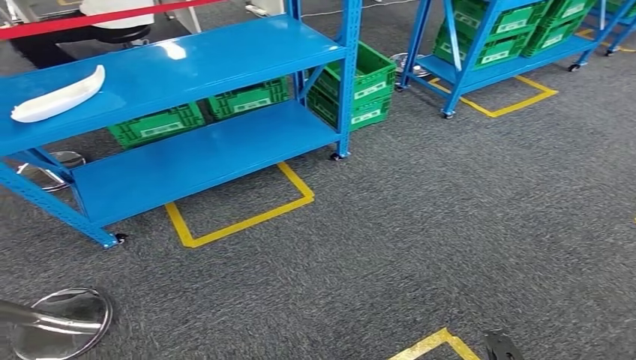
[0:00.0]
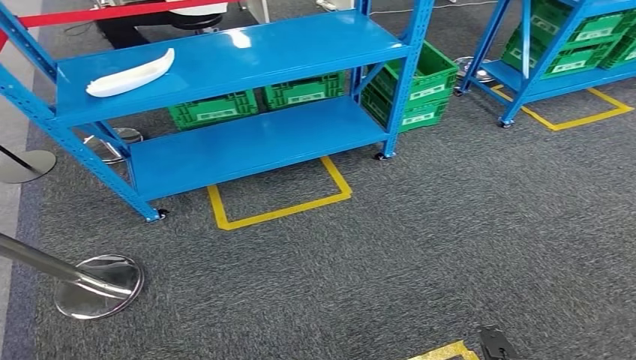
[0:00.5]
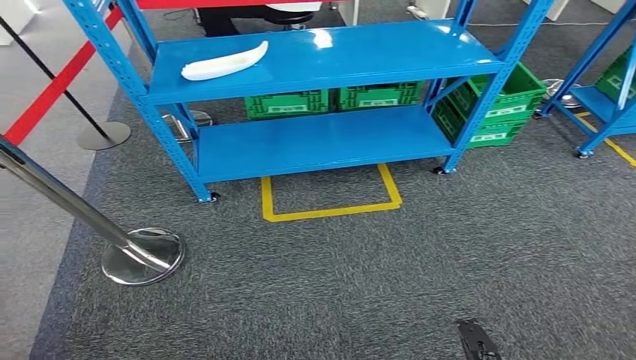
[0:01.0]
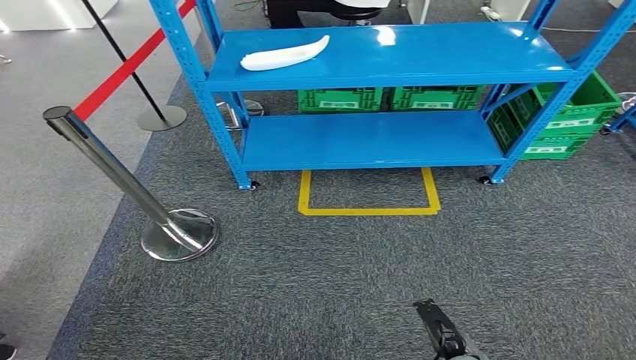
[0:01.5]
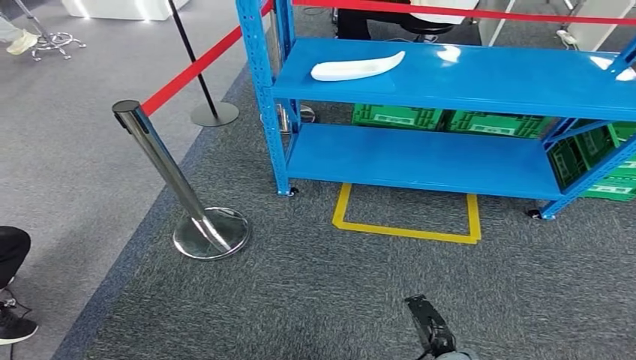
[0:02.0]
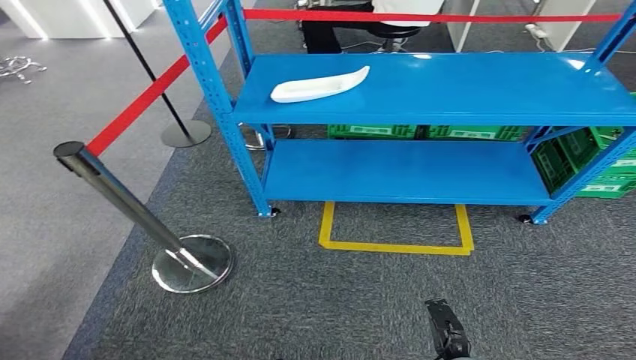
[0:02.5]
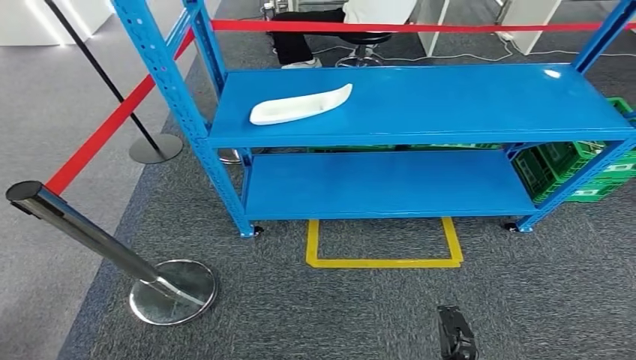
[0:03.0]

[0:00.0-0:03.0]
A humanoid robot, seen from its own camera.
Step, 0:00.0 to 0:03.0: Move to the initial position of the workbench.

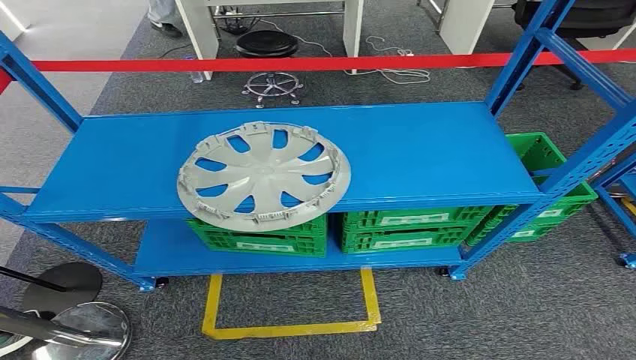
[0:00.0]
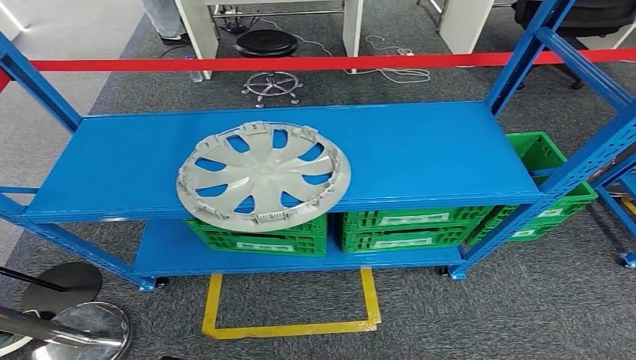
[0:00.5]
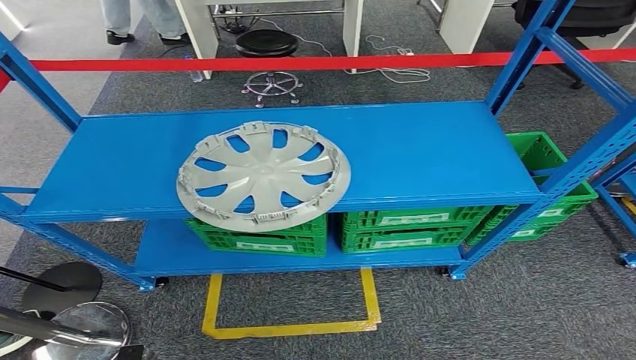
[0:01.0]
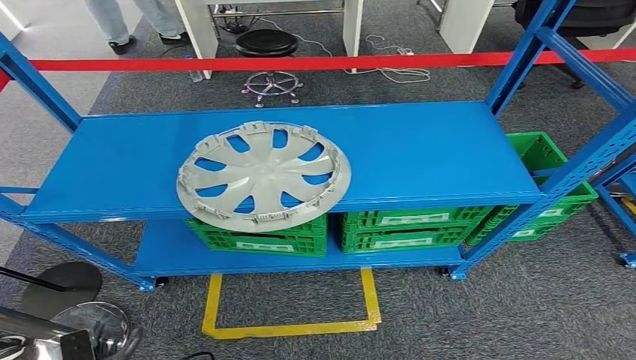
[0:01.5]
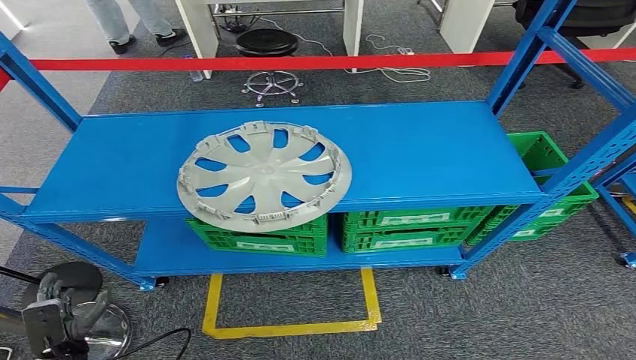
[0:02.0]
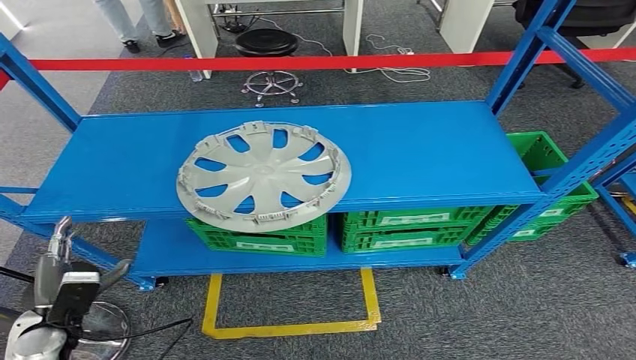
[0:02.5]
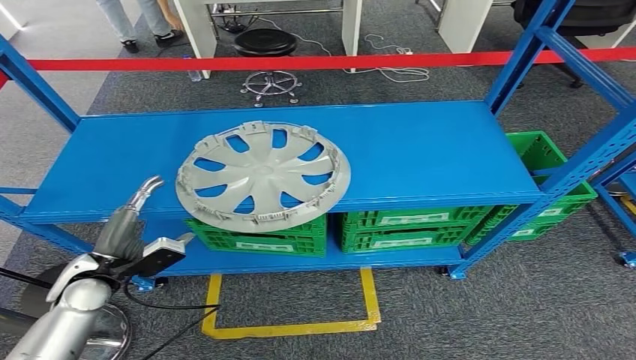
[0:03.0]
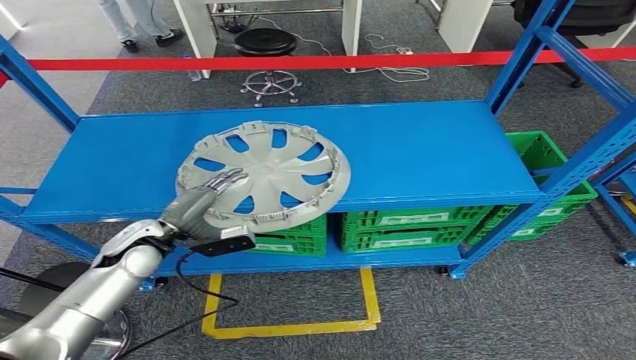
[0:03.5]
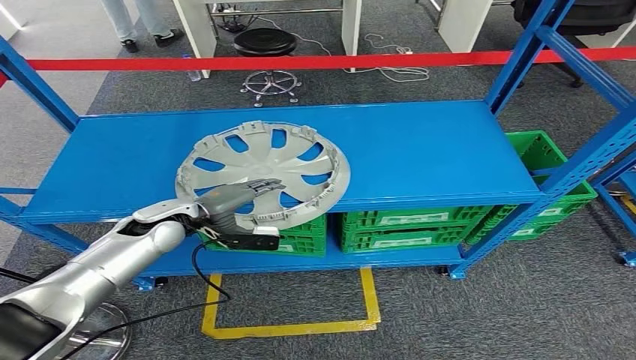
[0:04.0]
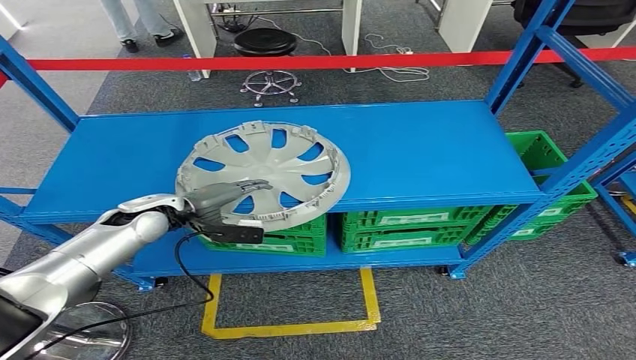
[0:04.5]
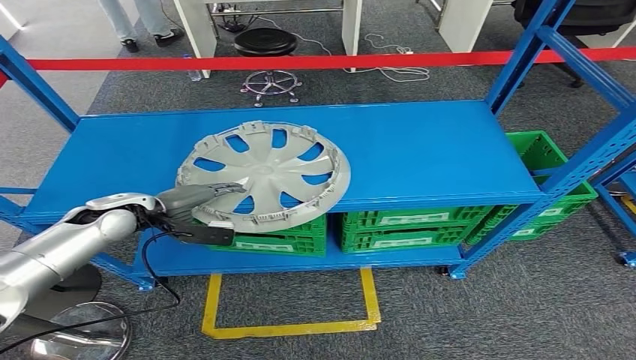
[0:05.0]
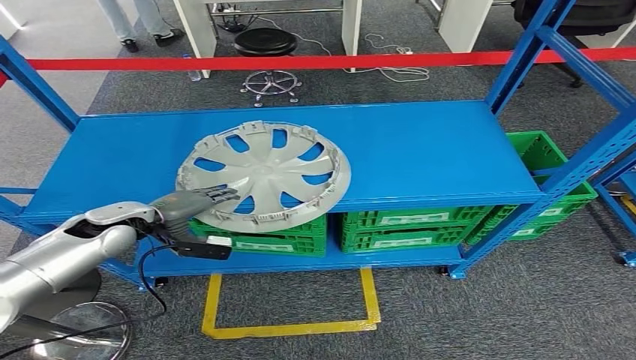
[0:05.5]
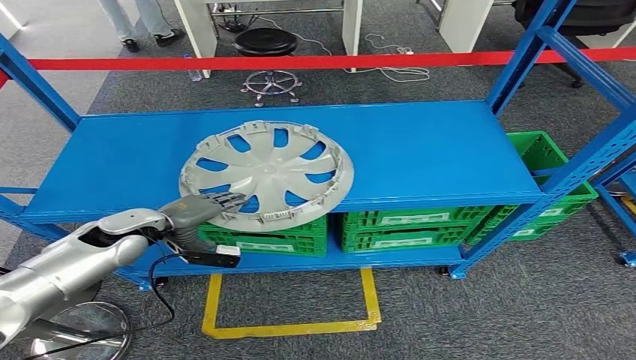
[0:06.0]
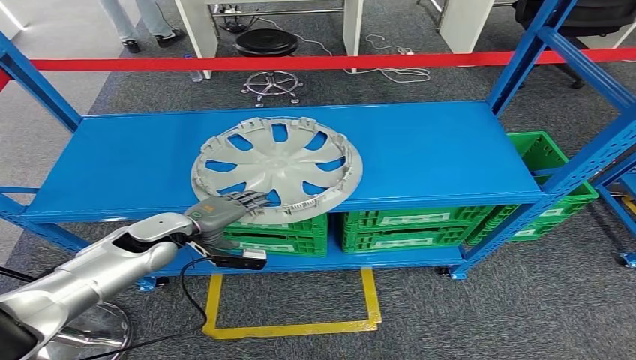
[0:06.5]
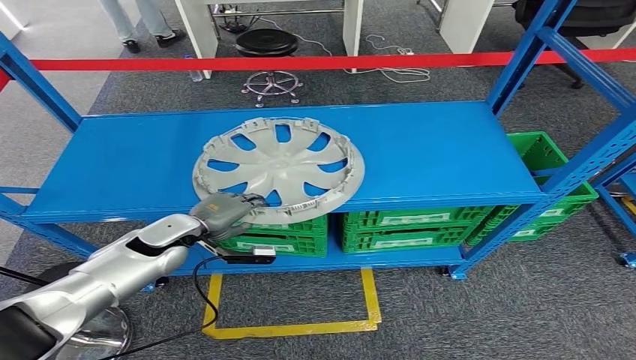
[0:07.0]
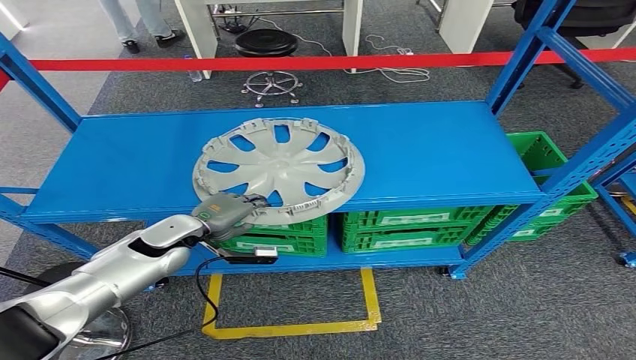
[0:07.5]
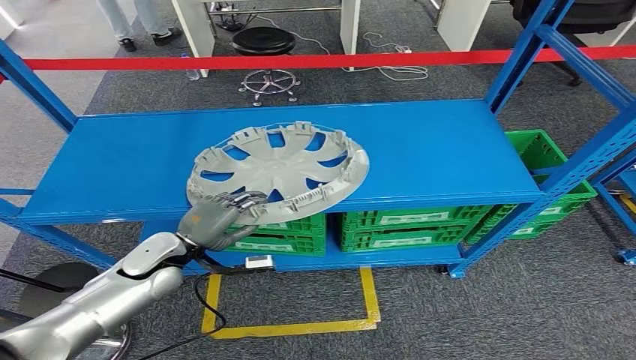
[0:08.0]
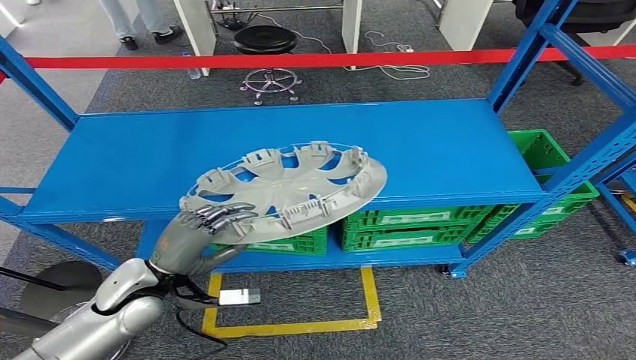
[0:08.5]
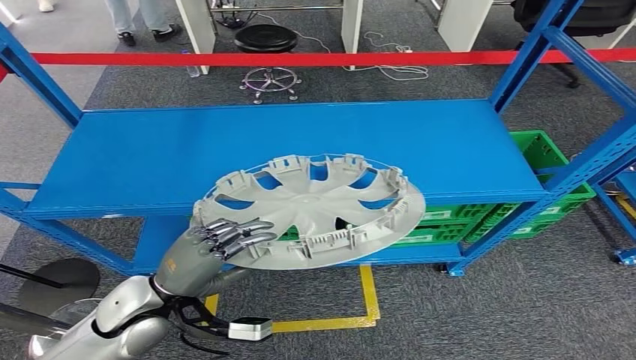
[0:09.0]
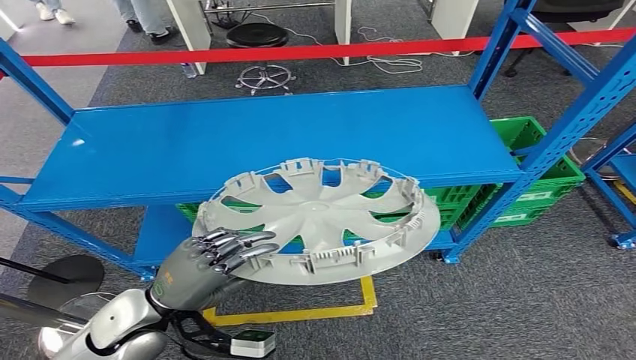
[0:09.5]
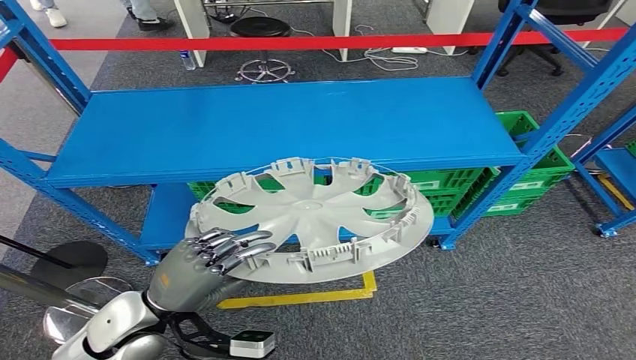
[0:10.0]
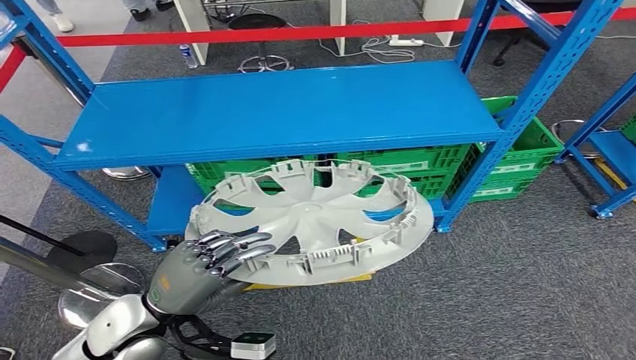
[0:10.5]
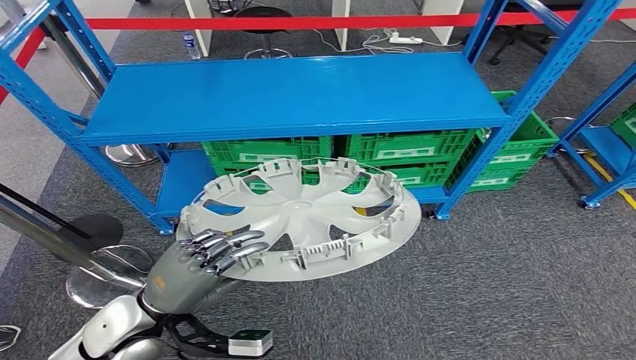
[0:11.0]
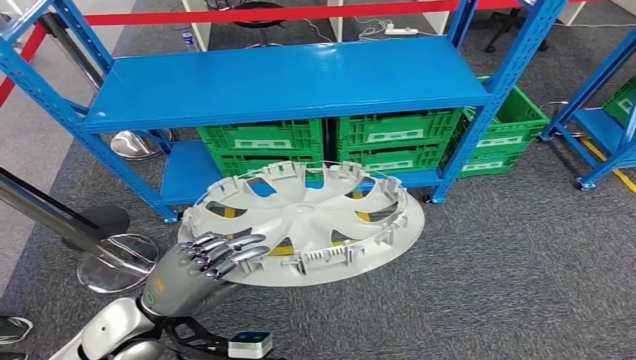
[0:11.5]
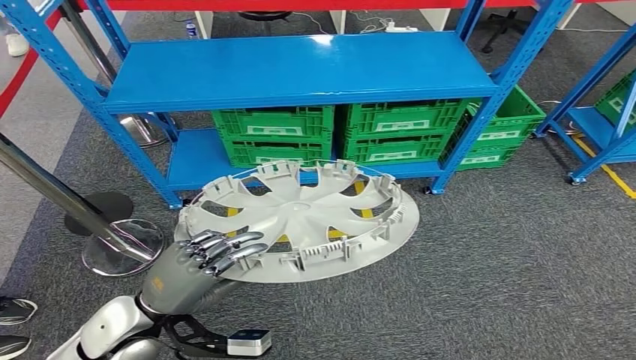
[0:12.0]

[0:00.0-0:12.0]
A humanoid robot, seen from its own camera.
Step, 0:00.0 to 0:10.0: Pick up the small component from the shelf.
0:02.0 to 0:04.0: The right hand heads to the right, covering some 5 cm. Meanwhile the left hand goes roughly 35 cm forward, upward and to the right.
0:04.0 to 0:06.0: The left hand shifts approximately 5 cm to the left.
0:06.0 to 0:08.0: The left hand travels to the right by some 5 cm.

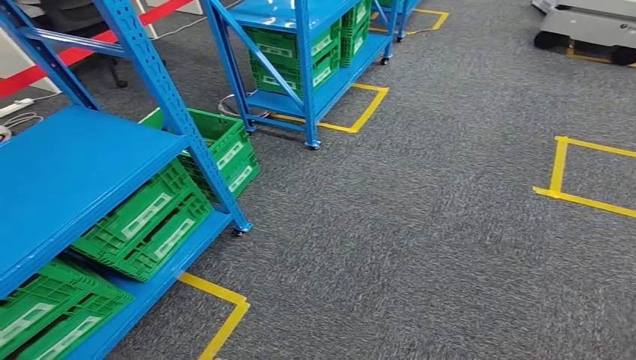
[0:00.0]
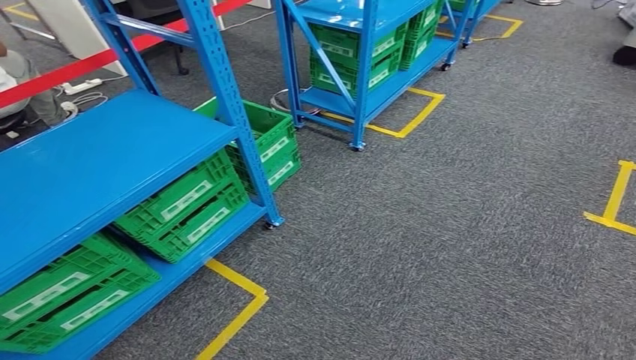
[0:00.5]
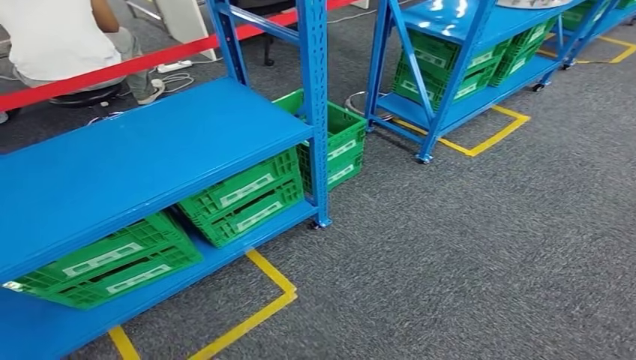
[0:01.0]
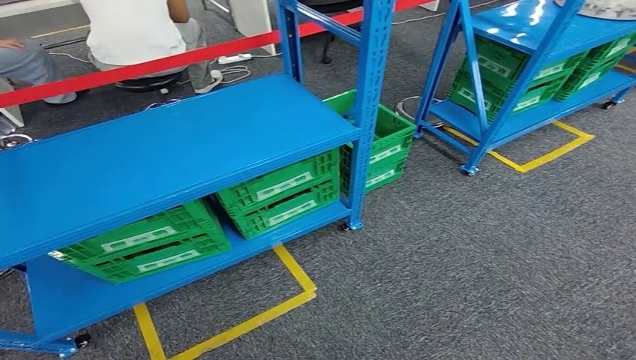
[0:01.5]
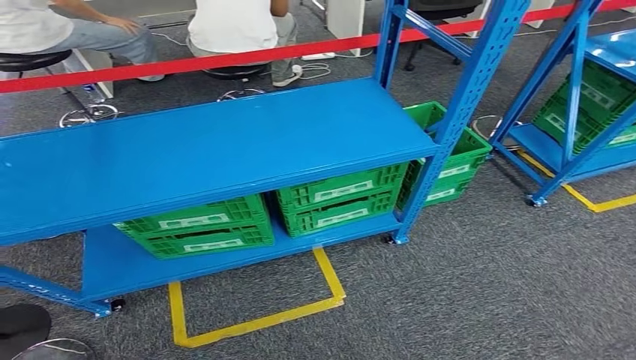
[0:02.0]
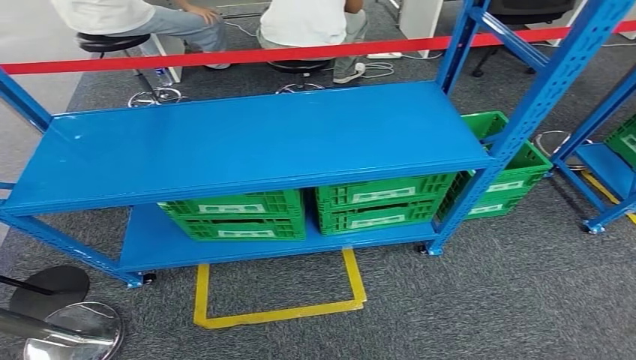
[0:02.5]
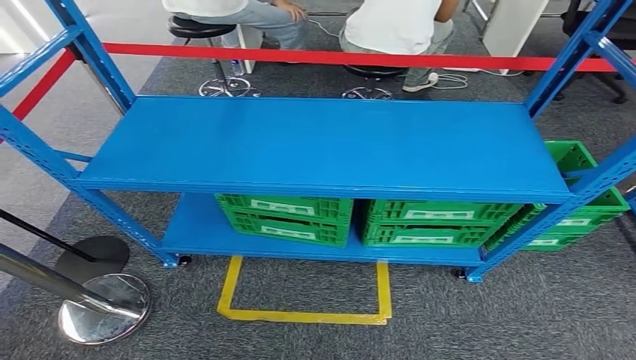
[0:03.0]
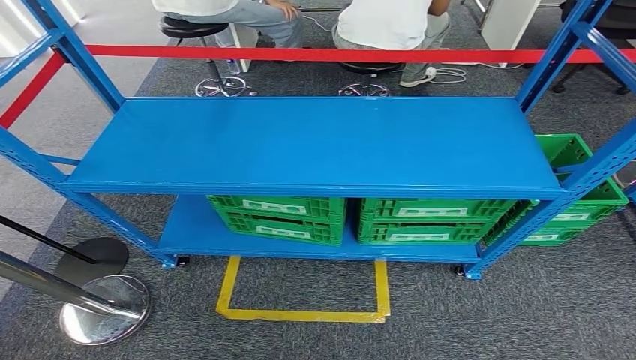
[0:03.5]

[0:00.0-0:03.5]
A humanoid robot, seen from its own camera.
Step, 0:00.0 to 0:03.5: Move to the initial position of the workbench.
